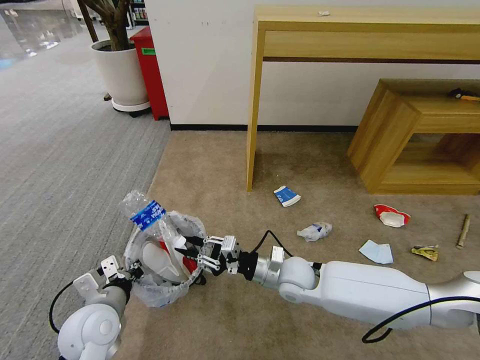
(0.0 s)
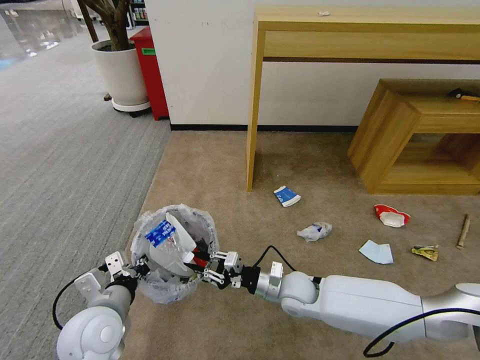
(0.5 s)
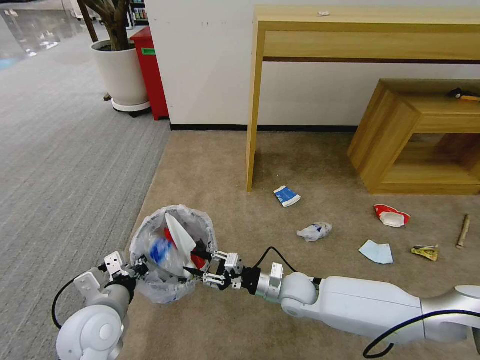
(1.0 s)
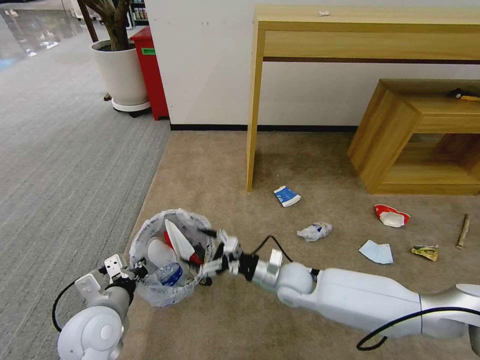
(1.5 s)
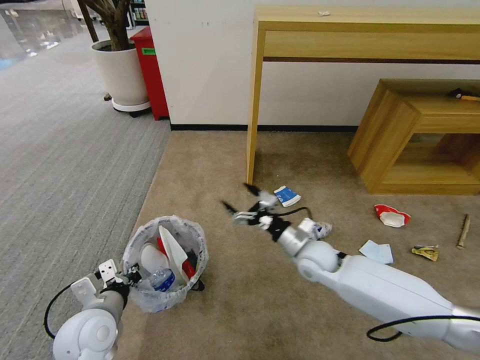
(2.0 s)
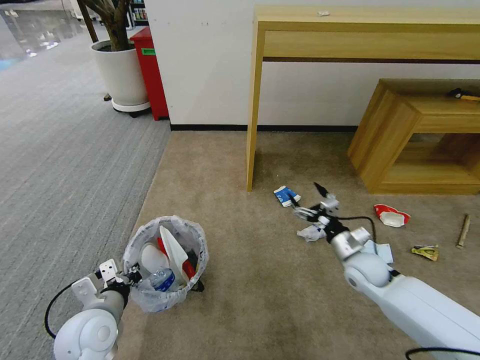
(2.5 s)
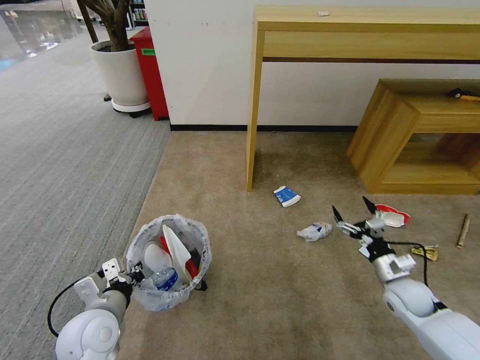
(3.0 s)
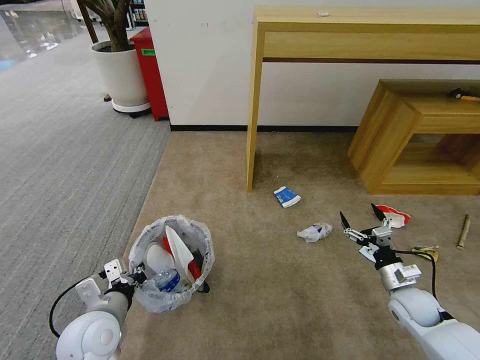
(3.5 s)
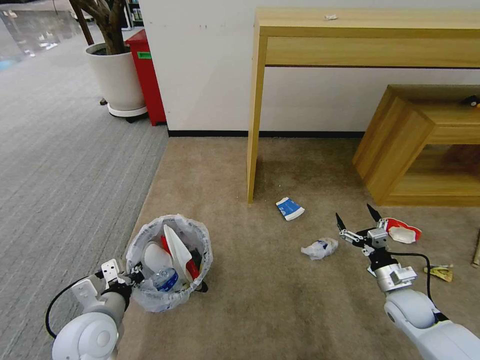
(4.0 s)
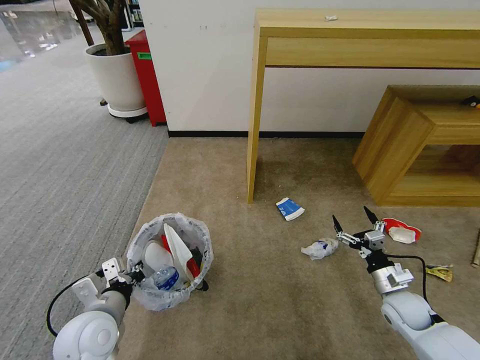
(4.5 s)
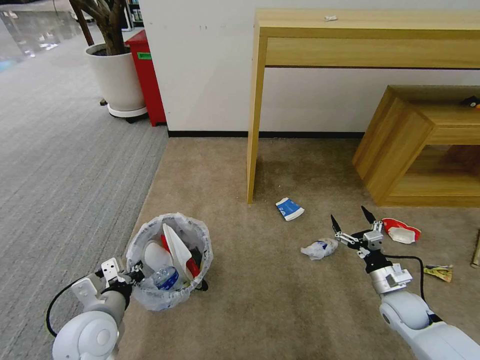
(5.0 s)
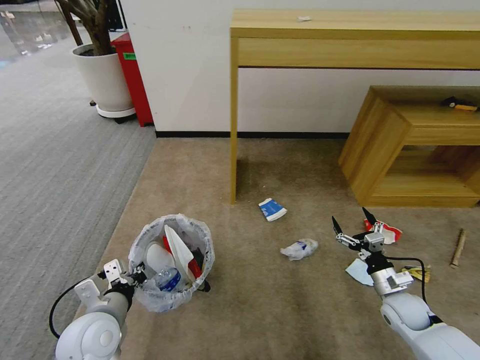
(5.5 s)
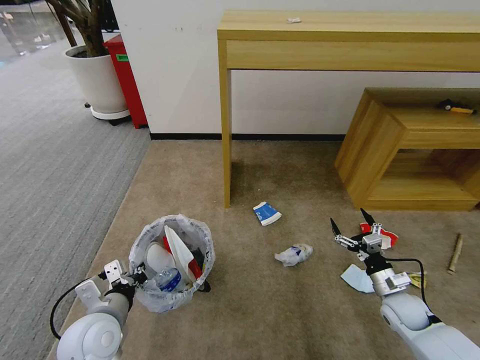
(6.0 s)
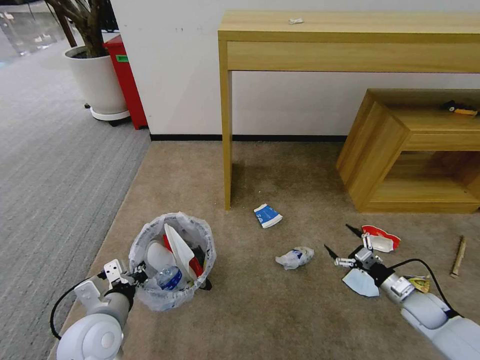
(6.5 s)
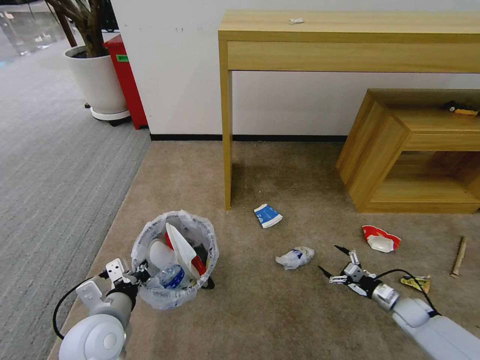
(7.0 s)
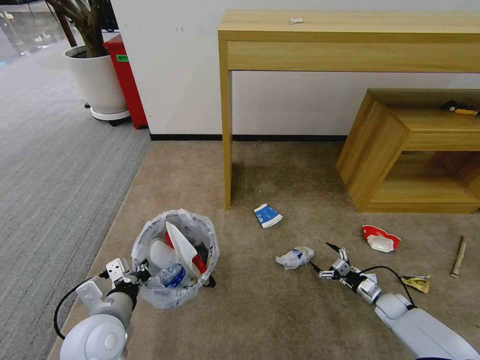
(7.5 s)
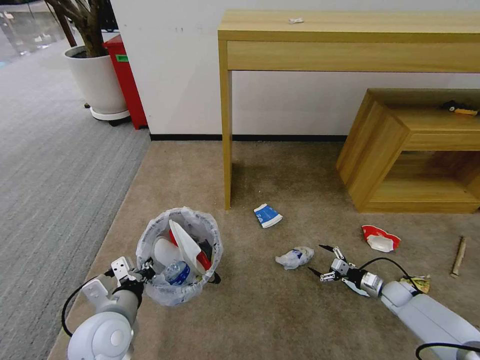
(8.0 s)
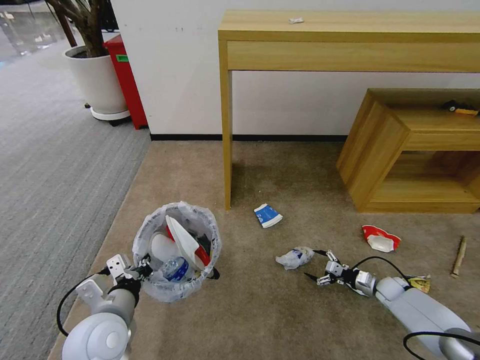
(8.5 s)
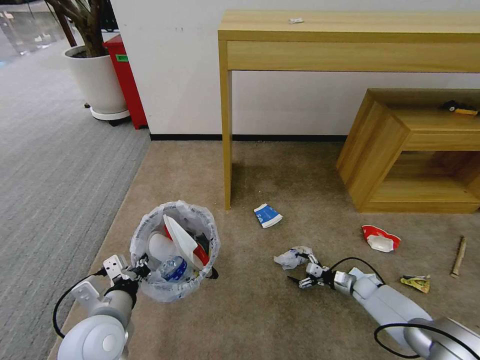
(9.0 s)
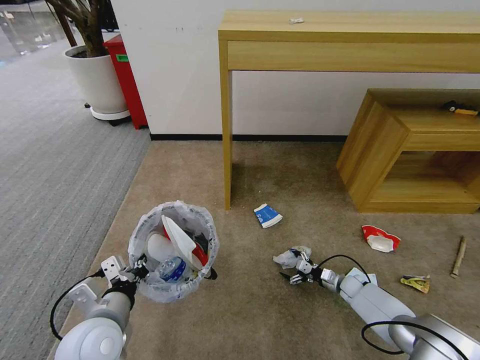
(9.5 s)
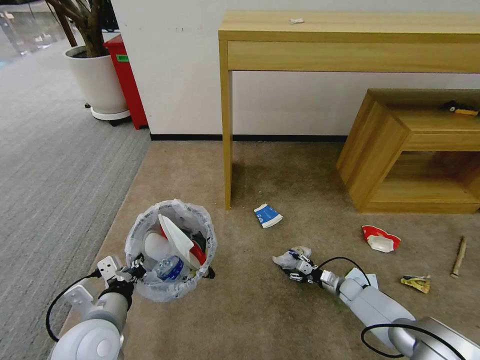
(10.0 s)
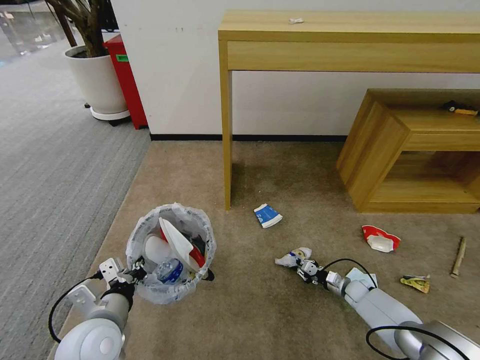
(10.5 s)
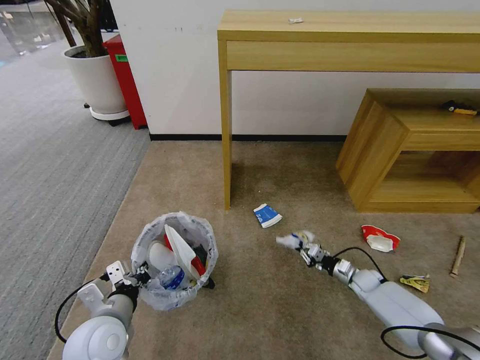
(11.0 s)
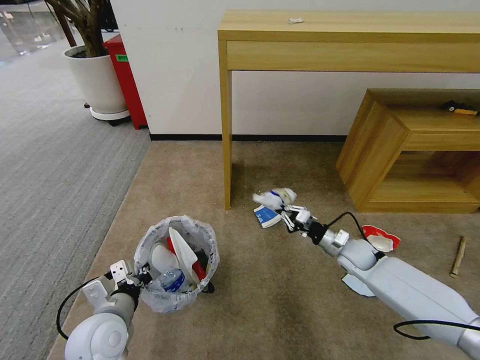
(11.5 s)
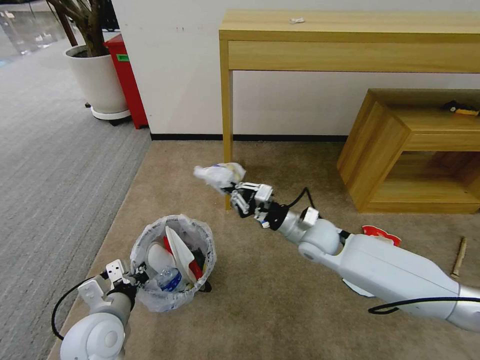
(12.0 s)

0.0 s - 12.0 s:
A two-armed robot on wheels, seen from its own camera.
Task of the whole recording: Pick up the trash bin and place the garbage on the floor into it.
0.0 s - 2.0 s: The right gripper ends up about 5 cm from where it was, and opens its fingers.
2.0 s - 4.0 s: The right gripper travels to the right by about 25 cm.
6.0 s - 8.0 s: The right gripper moves downward, to the right and forward, some 15 cm.
8.0 s - 10.0 s: The right gripper heads to the left and downward, covering some 10 cm, and closes up.
10.0 s - 12.0 s: The right gripper shifts about 35 cm upward and to the left, and closes up.

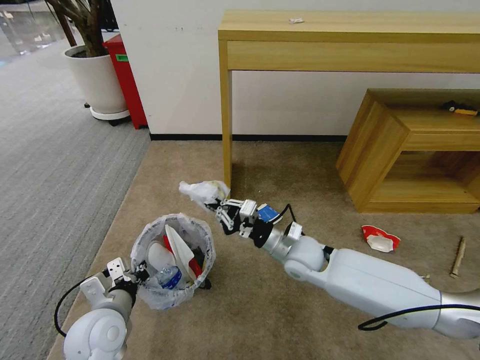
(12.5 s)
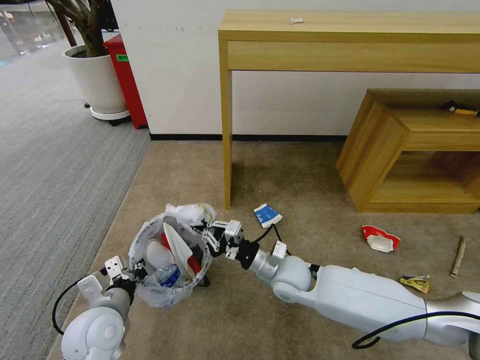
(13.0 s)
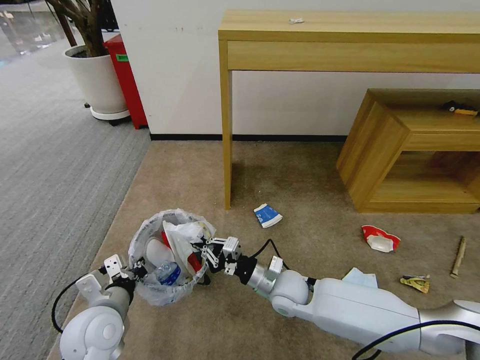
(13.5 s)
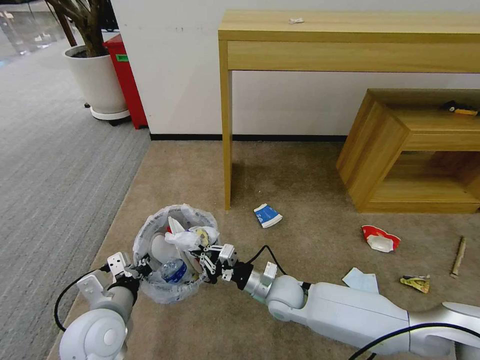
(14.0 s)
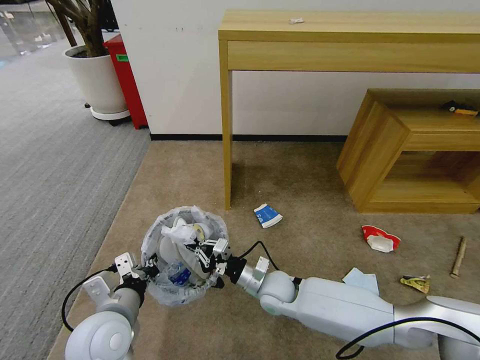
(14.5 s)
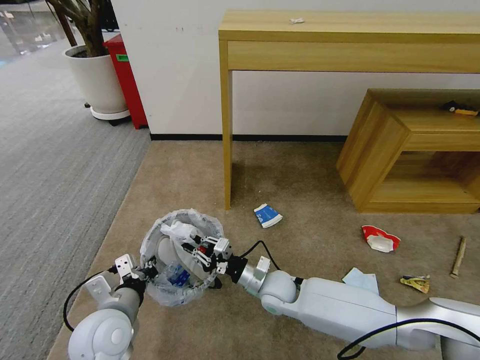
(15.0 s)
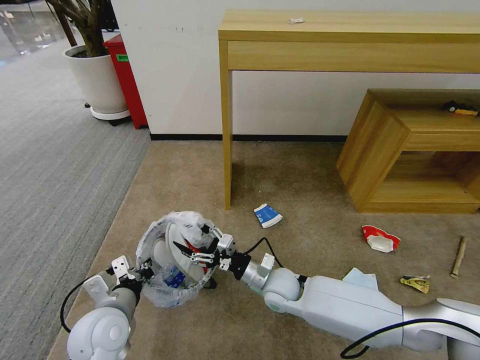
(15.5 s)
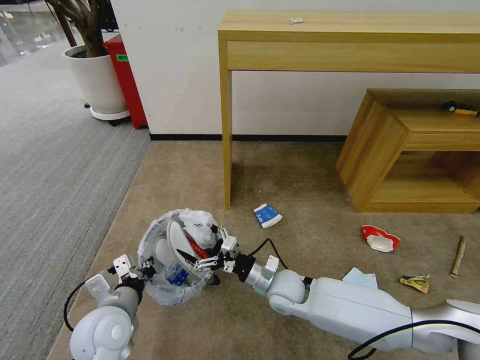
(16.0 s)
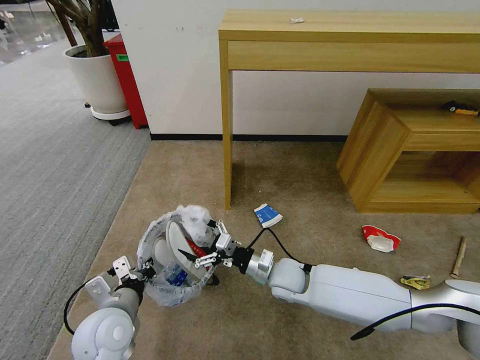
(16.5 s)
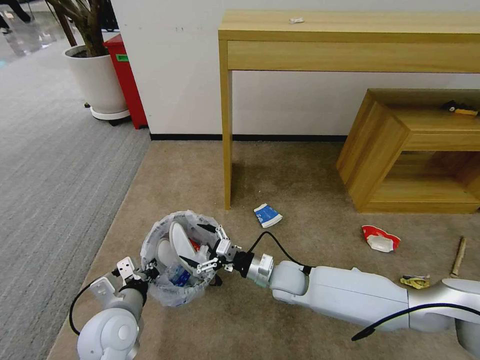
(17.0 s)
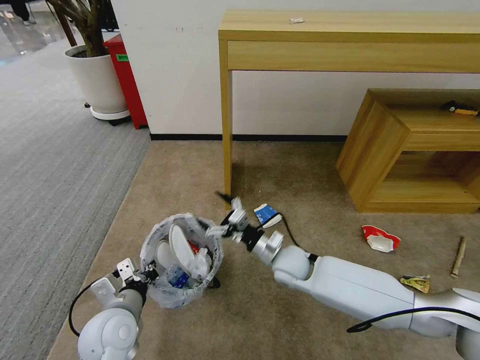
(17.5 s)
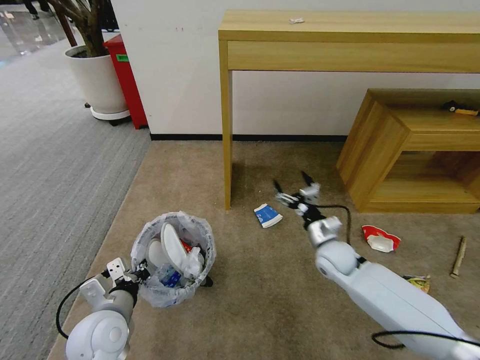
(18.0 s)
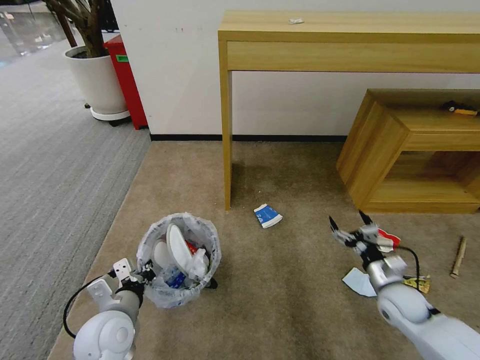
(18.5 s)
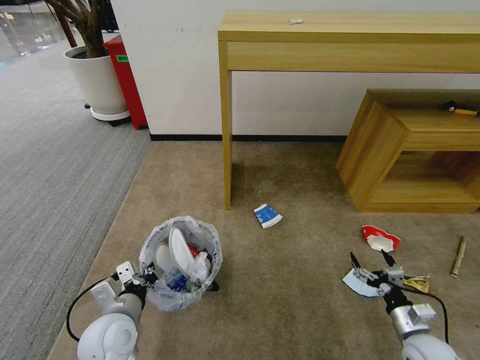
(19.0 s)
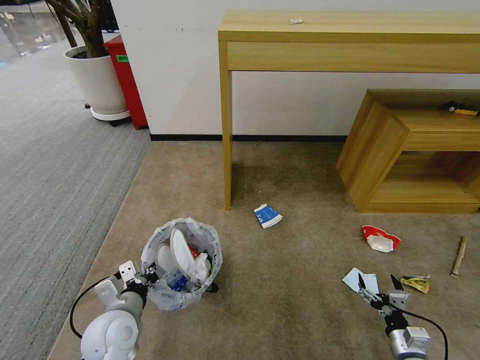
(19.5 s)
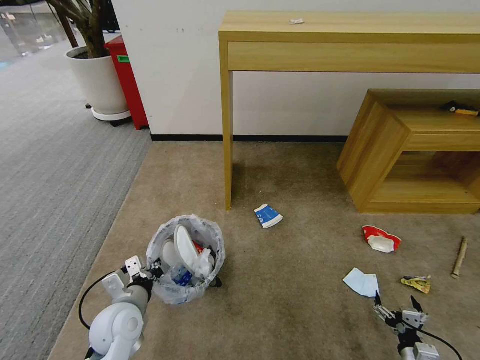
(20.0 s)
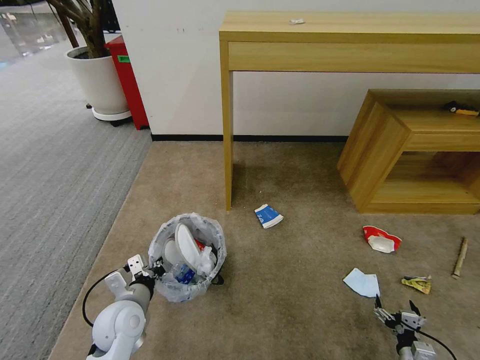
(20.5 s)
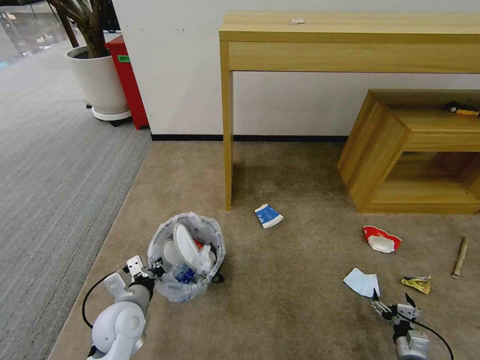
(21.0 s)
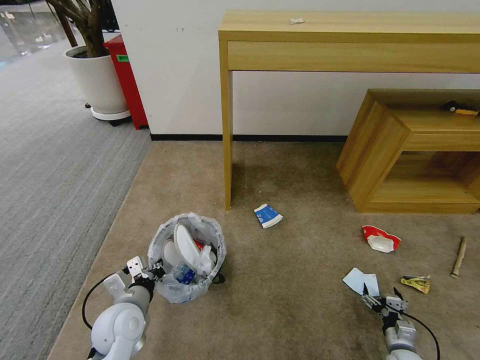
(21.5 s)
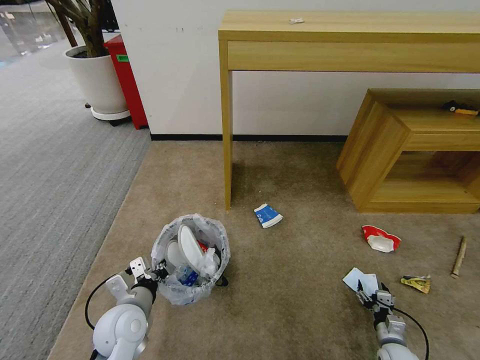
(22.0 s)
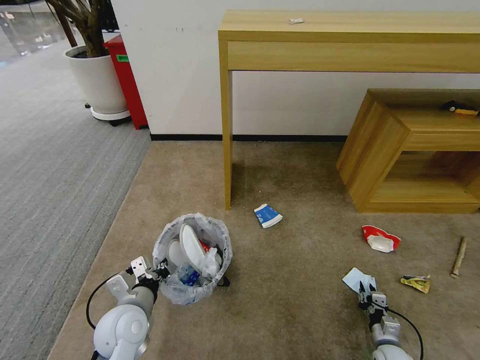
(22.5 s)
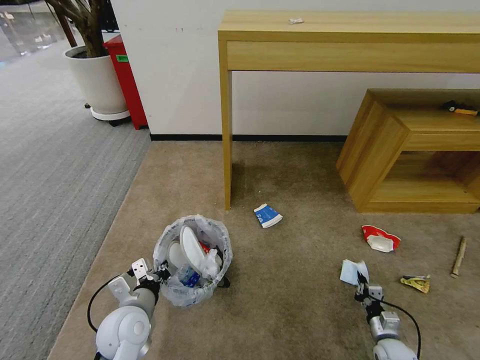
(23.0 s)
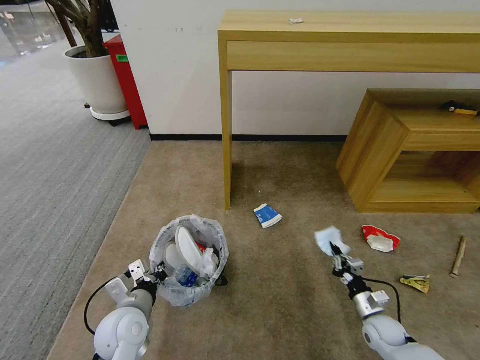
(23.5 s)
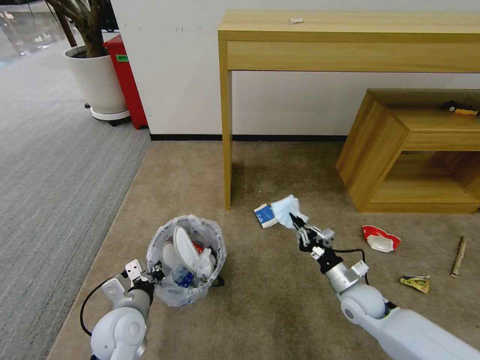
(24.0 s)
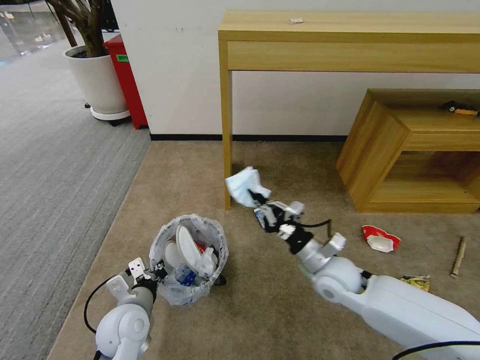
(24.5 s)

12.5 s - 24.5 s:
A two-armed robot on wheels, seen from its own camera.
Task of the whole recording: Pick up the trash bin and place the garbage on the floor into it.
12.5 s - 14.5 s: The right gripper is displaced downward and to the left by about 10 cm.
14.5 s - 16.5 s: The right gripper opens its fingers.
16.5 s - 18.5 s: The right gripper travels to the right by some 25 cm.
18.5 s - 20.5 s: The left gripper moves roughly 5 cm. The right gripper moves downward, backward and to the right, approximately 25 cm.
20.5 s - 22.5 s: The right gripper travels forward by approximately 5 cm, and closes its fingers.
22.5 s - 24.5 s: The right gripper heads upward and to the left, covering some 40 cm.

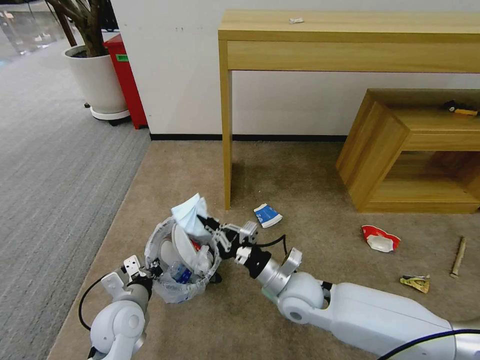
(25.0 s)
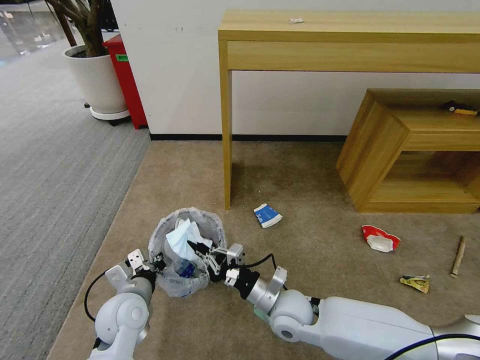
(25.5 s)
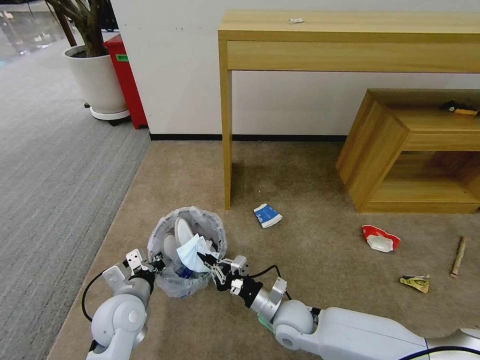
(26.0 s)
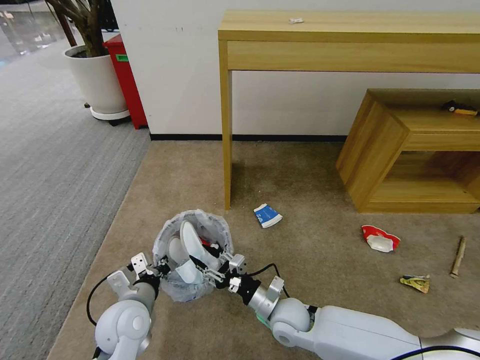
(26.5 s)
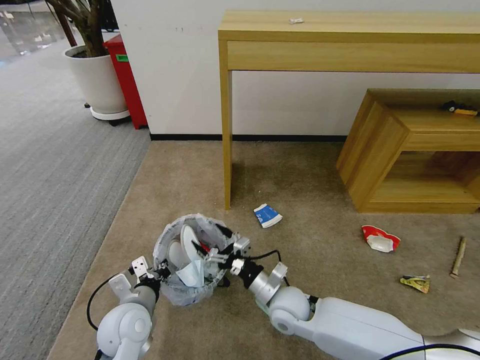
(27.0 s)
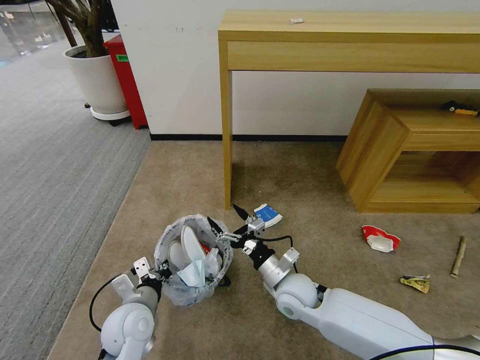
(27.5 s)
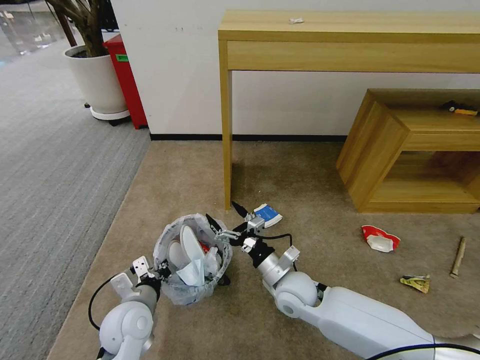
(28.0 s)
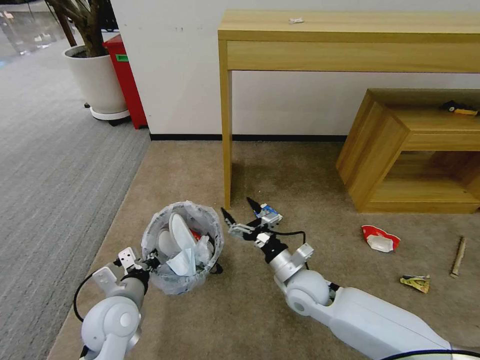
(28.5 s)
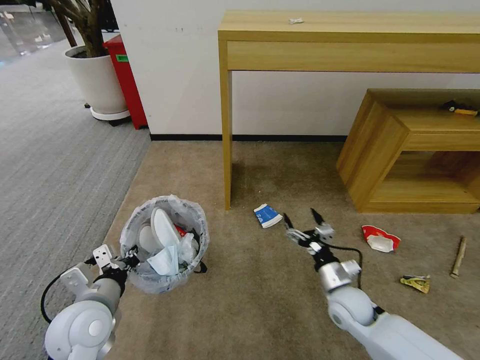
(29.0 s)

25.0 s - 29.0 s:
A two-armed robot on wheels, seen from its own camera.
Task of the whole recording: Pick up the trash bin and place the garbage on the floor into it.
25.0 s - 27.0 s: The right gripper travels downward by approximately 5 cm, and opens up.
27.0 s - 29.0 s: The right gripper shifts some 15 cm to the right. The left gripper shifts approximately 10 cm upward and to the left.
